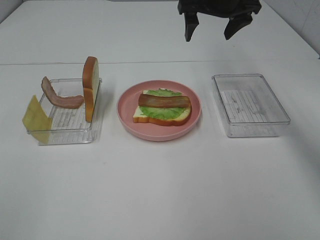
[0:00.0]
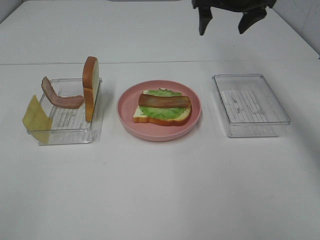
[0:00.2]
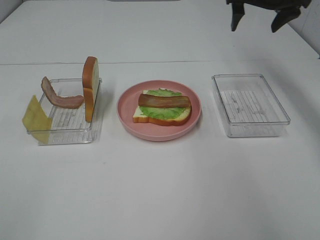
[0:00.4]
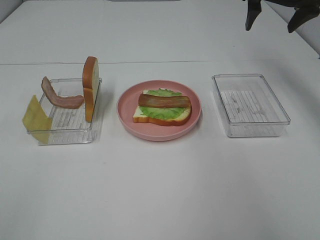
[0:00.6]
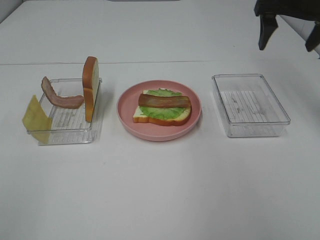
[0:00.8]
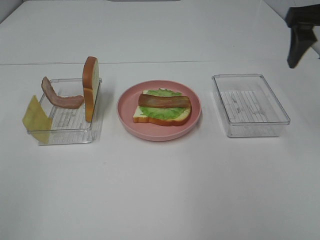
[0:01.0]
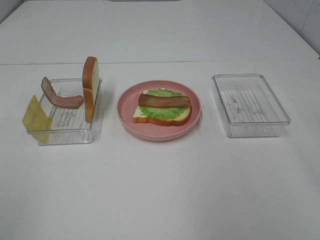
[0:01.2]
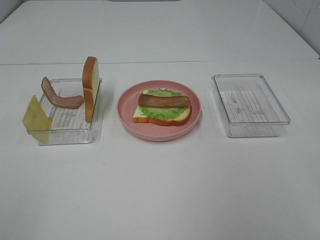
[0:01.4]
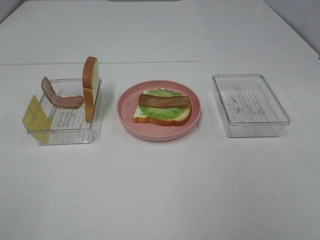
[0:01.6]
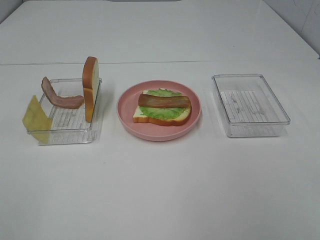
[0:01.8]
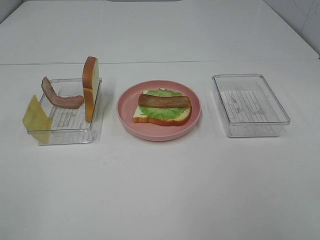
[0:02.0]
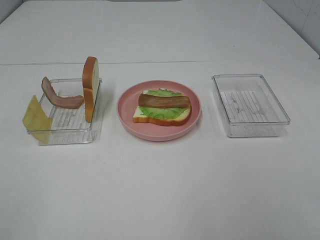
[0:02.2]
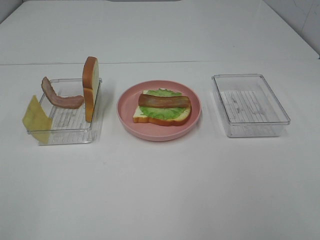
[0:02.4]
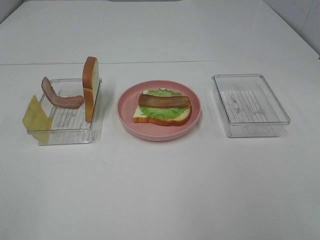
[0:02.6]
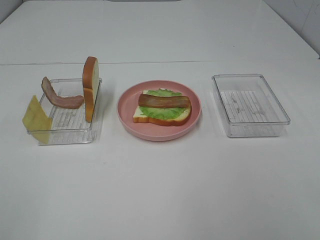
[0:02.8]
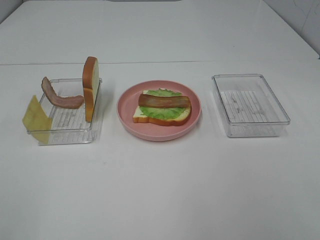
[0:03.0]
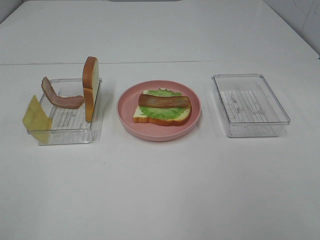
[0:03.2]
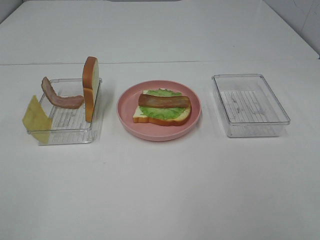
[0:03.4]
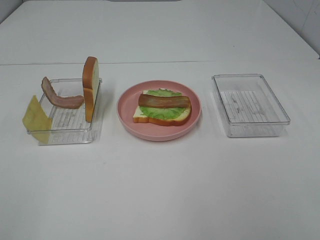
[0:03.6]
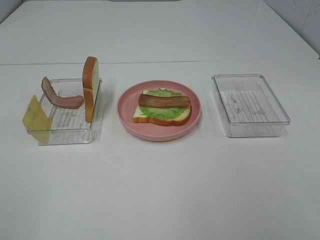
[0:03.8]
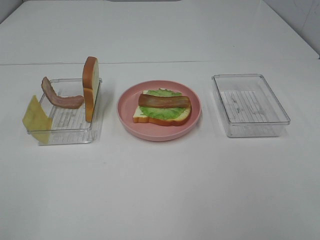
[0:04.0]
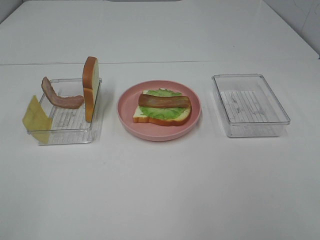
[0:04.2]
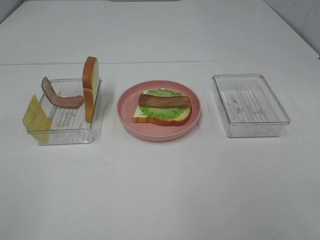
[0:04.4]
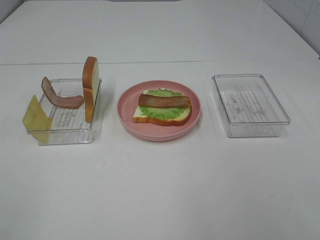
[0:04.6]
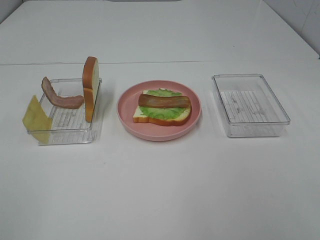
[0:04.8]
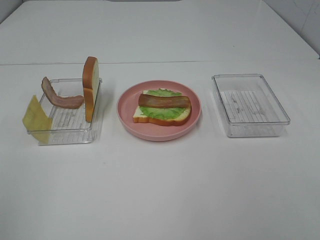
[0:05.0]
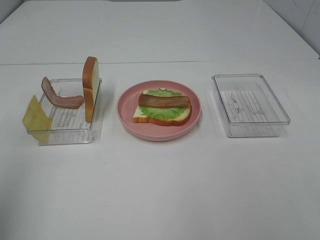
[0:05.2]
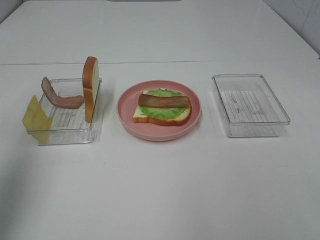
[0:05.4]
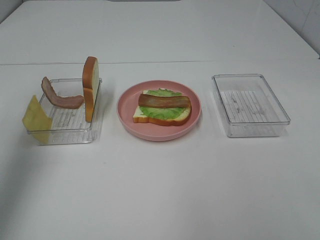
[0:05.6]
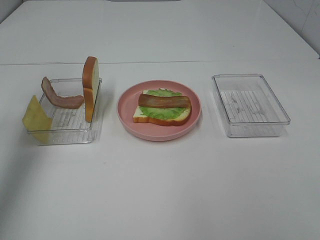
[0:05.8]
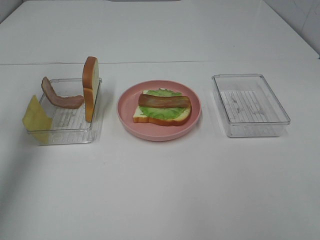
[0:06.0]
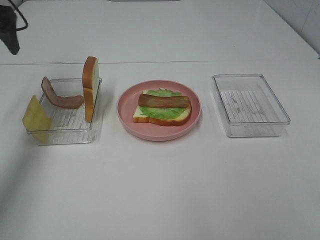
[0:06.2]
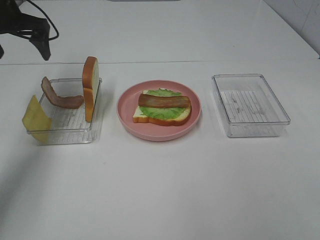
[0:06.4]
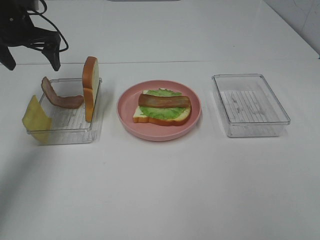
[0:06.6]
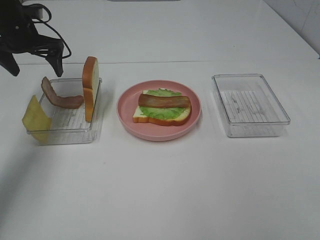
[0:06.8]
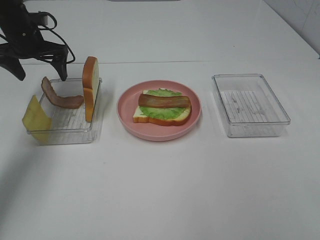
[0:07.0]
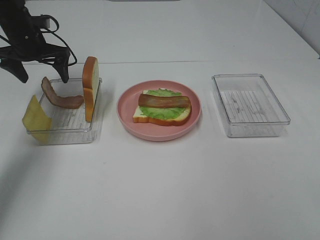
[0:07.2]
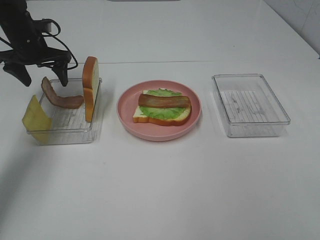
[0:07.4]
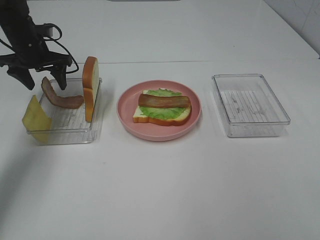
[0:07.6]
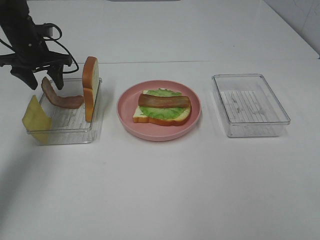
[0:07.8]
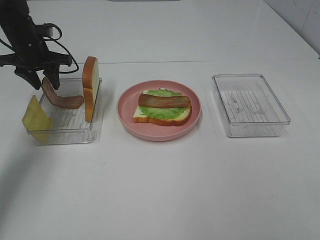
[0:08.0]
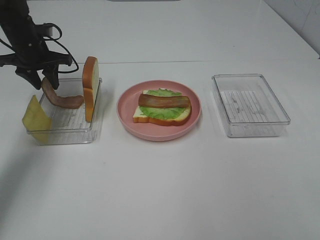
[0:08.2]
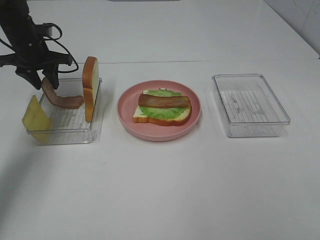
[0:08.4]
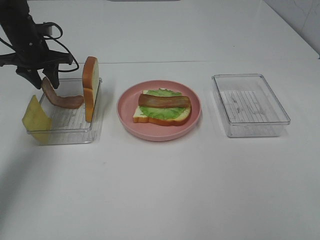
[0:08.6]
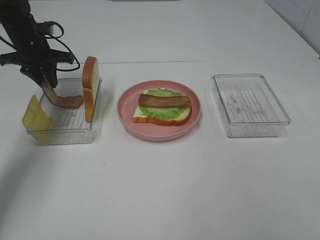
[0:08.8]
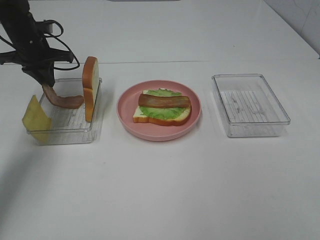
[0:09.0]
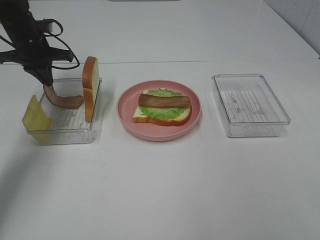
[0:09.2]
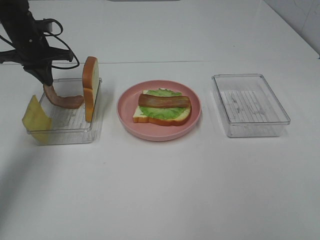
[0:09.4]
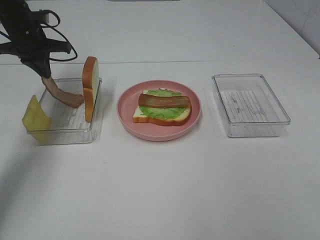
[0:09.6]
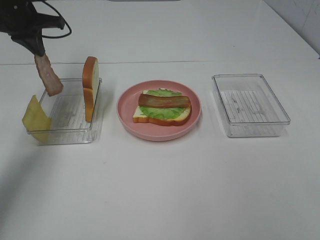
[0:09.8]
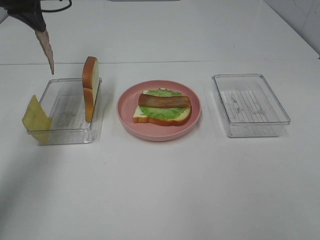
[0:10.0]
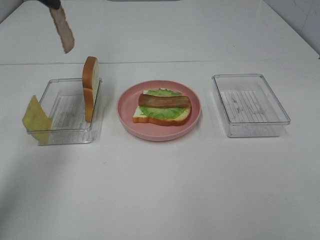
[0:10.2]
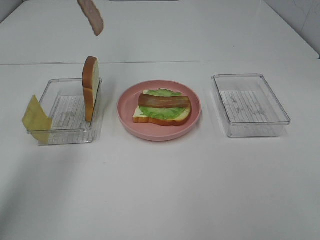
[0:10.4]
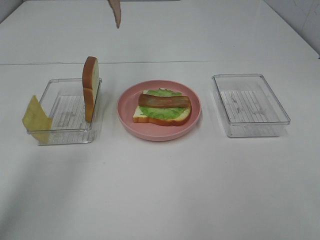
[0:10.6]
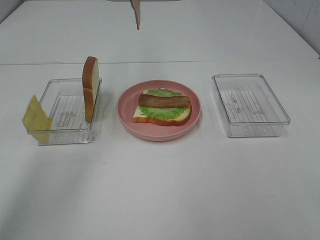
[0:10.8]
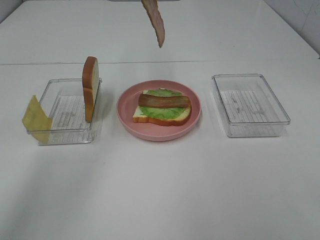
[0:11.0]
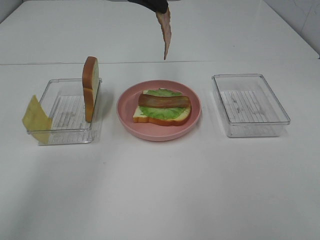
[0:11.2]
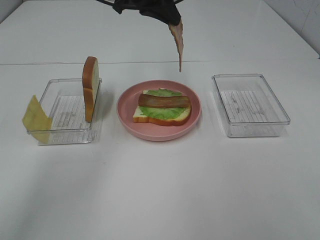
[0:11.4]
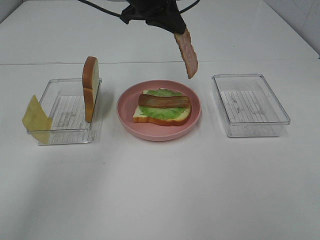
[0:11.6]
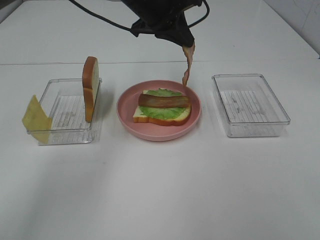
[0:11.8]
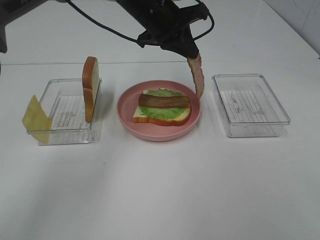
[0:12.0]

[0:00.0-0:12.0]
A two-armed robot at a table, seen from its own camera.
Task of the whole recording: Make sandwiches.
Step, 0:00.0 to 0:09.4: Left hand:grab the bacon.
0:00.0 to 0:01.6: The right gripper moves backward, some 40 cm.
0:03.0 to 0:04.4: Both grippers stay put.
0:04.4 to 0:06.0: The left gripper shifts some 40 cm forward.
0:06.0 to 0:07.6: The left gripper goes approximately 20 cm downward and forward.
0:07.6 to 0:09.0: The left gripper closes.
0:09.0 to 0:10.4: The left gripper goes approximately 25 cm upward and to the right.
0:10.4 to 0:12.0: The left gripper travels to the right and downward by some 20 cm.

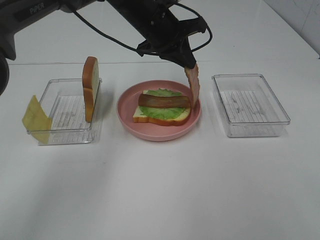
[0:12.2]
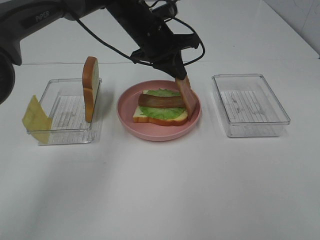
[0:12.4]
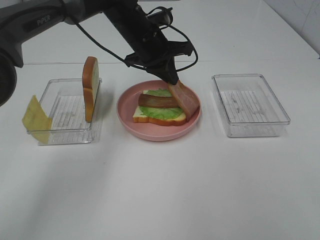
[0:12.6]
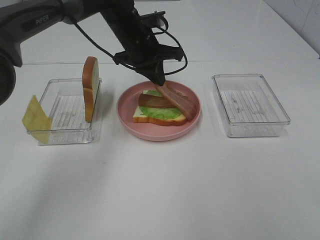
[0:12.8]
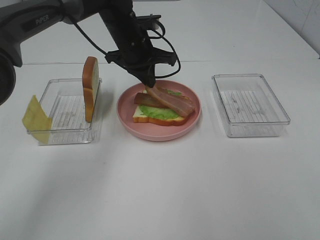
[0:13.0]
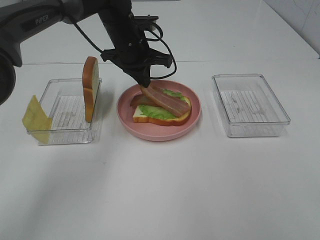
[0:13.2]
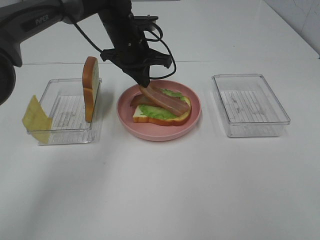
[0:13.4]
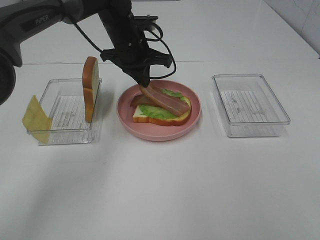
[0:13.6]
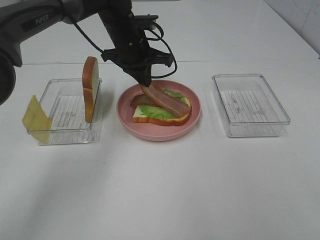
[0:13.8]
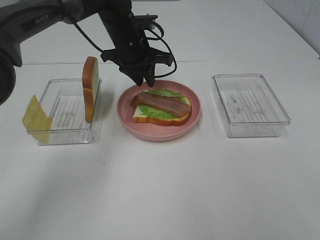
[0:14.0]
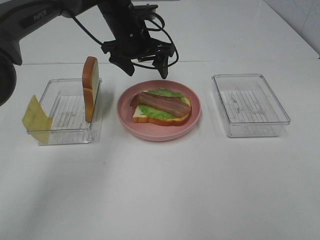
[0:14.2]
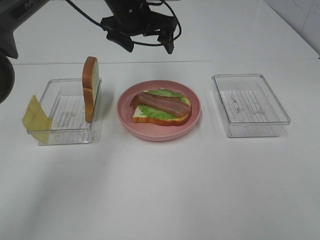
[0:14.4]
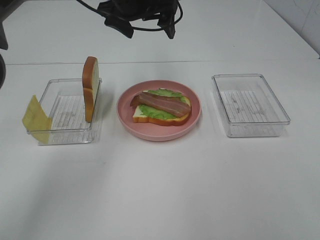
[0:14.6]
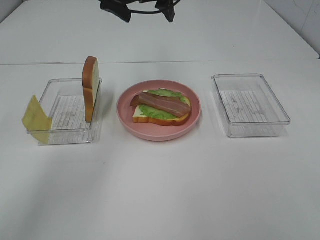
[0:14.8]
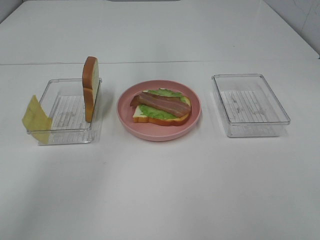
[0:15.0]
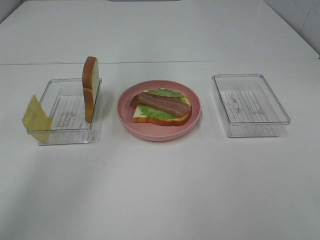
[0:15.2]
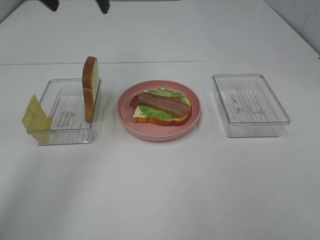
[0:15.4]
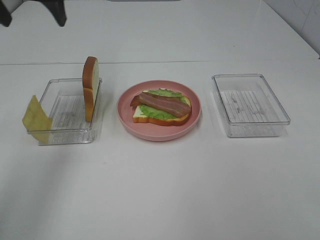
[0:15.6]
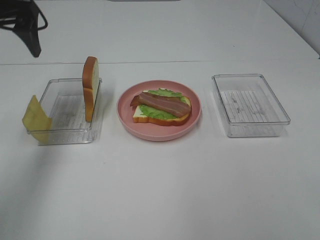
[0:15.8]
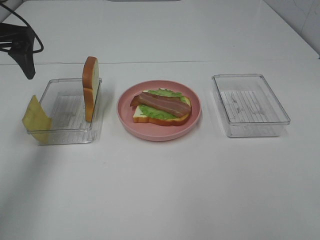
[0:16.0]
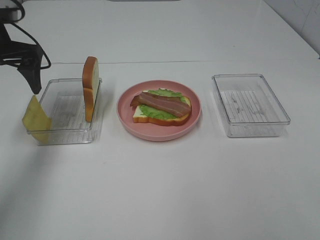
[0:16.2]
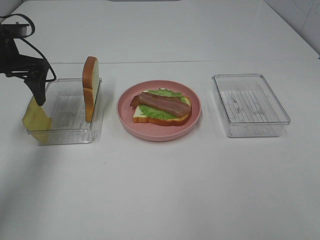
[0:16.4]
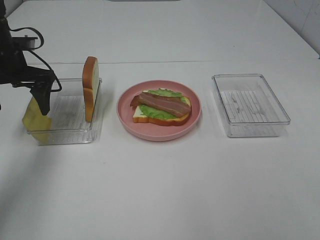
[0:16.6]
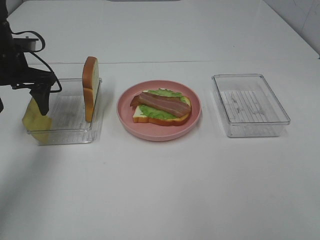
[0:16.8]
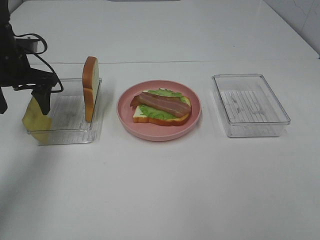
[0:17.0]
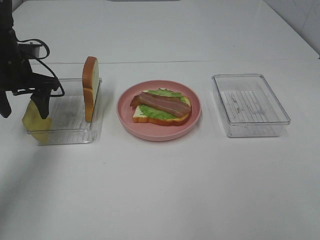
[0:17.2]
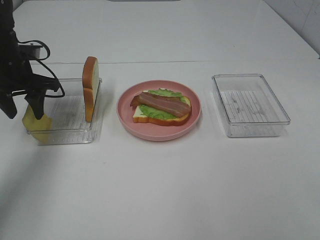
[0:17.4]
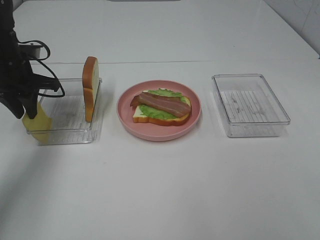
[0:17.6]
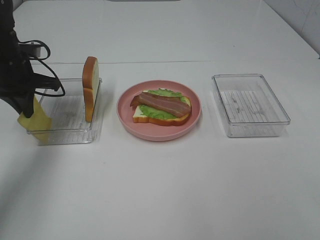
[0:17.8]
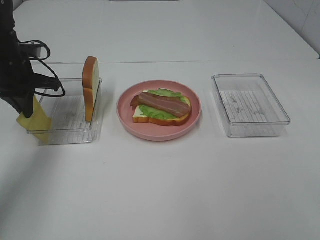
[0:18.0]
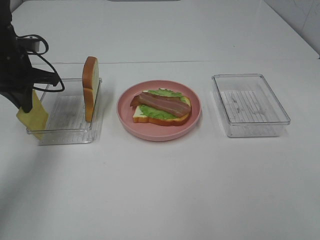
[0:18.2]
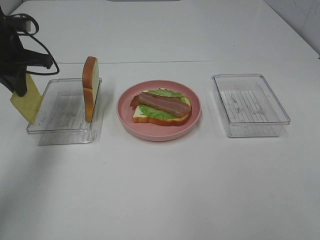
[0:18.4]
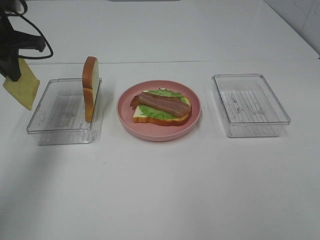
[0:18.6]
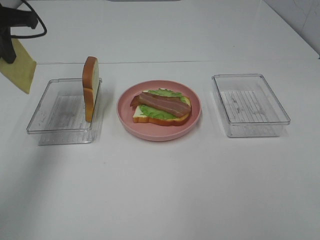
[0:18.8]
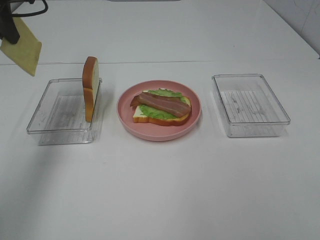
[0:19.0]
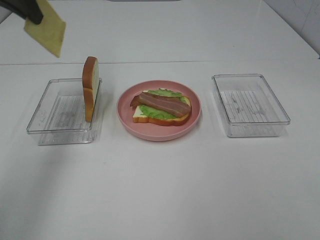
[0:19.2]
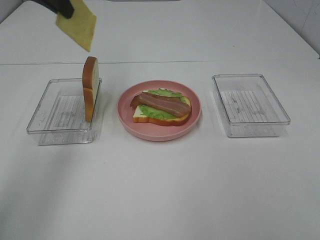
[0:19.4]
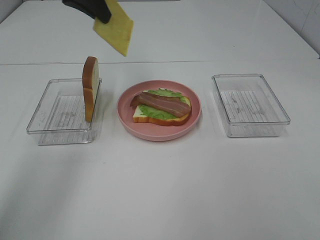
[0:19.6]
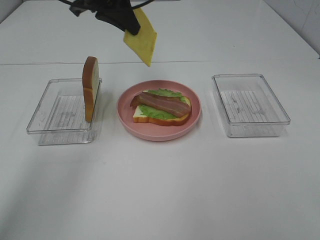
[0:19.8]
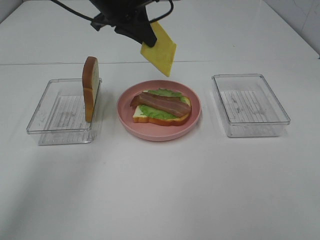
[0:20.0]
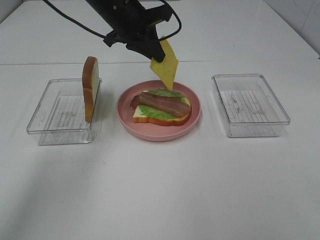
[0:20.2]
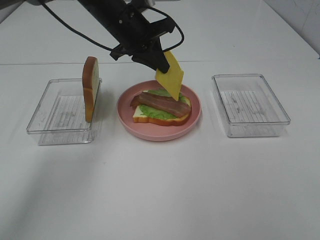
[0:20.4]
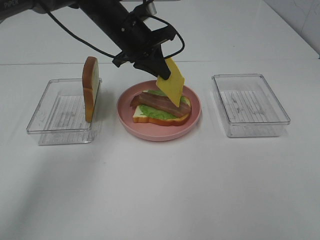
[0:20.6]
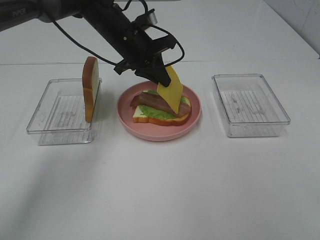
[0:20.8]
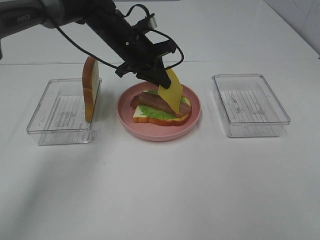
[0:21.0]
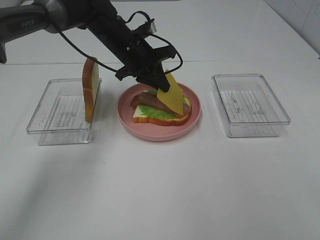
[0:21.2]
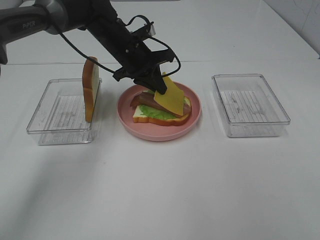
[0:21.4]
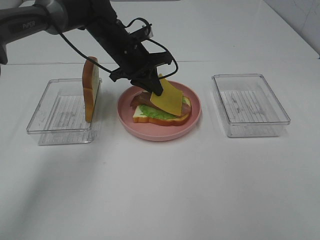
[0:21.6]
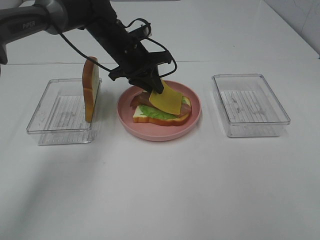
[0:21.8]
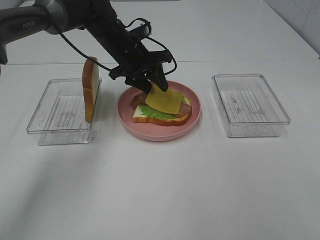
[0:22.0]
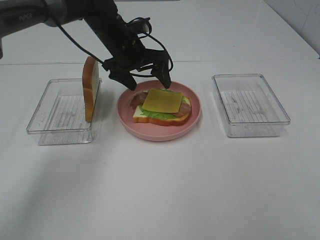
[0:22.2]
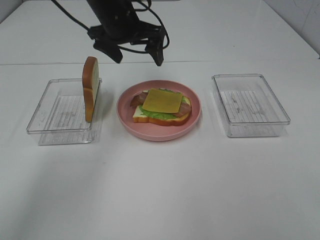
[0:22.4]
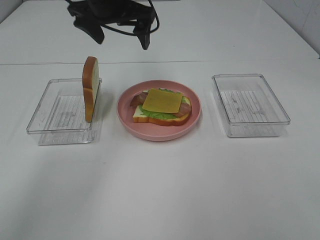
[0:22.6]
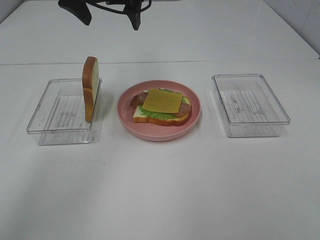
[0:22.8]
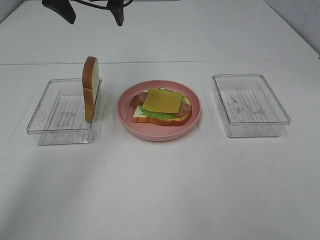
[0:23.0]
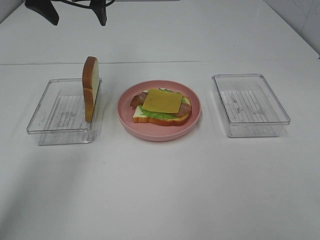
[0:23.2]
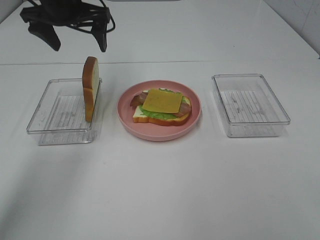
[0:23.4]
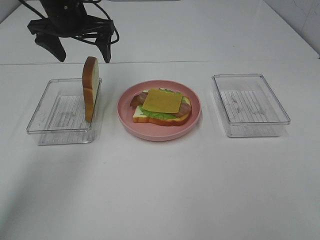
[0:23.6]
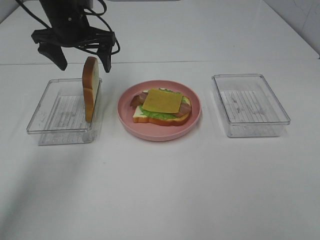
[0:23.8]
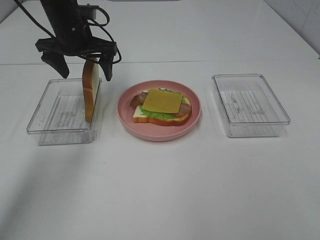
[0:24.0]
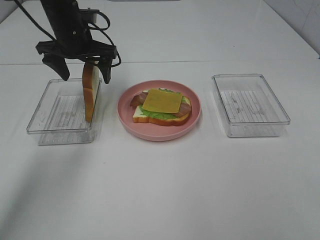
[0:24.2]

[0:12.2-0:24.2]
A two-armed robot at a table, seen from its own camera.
Task of the whole recording: Make sandwiches.
Step, 0:12.2 to 0:14.2: Left hand:place bacon on bacon.
Step, 0:14.4 to 0:18.0: Left hand:grab the cheese slice.
Step, 0:18.2 to 0:22.2: Left hand:place the cheese slice on top of the bacon.
0:12.2 to 0:13.8: The left gripper changes place by roughly 5 cm.
0:13.8 to 0:15.2: The left gripper heads upward, covering roughly 20 cm, and opens up.
0:15.2 to 0:16.6: The left gripper shifts some 20 cm downward and to the left.
0:16.6 to 0:18.2: The left gripper closes up.
0:18.2 to 0:19.8: The left gripper moves to the right and upward, some 20 cm.
0:19.8 to 0:21.2: The left gripper heads downward, covering some 15 cm.
0:21.2 to 0:22.6: The left gripper goes approximately 10 cm upward, and opens.
0:22.6 to 0:24.2: The left gripper moves downward and to the left, some 10 cm.
